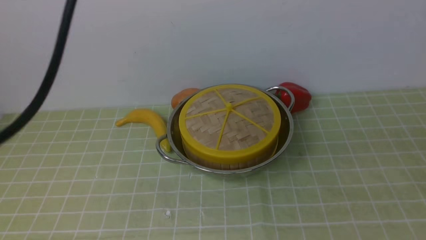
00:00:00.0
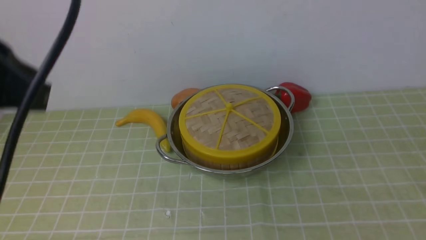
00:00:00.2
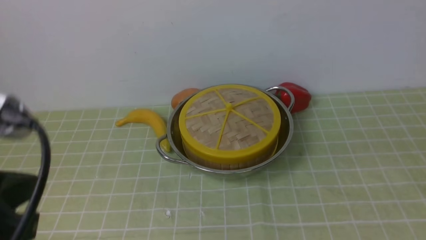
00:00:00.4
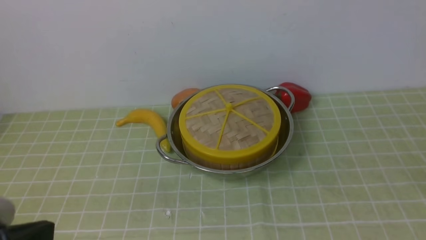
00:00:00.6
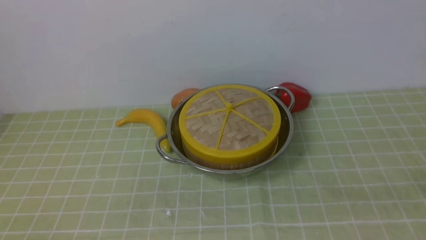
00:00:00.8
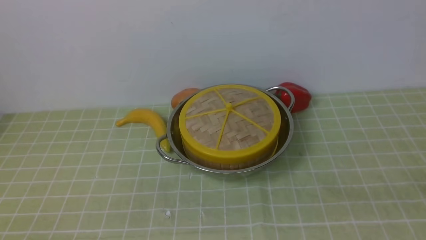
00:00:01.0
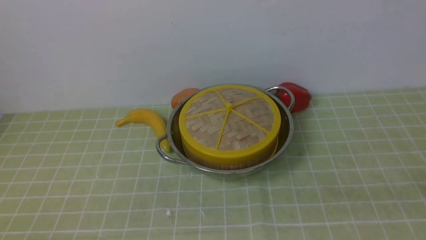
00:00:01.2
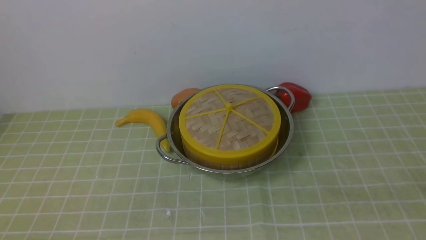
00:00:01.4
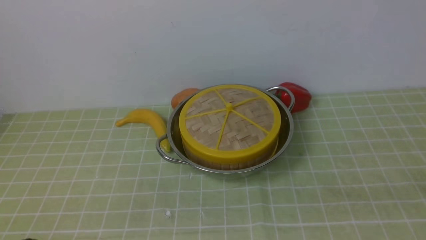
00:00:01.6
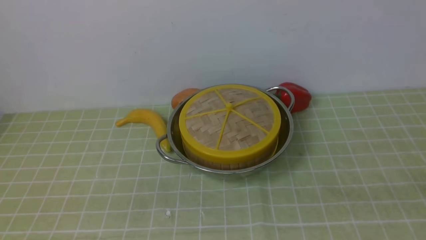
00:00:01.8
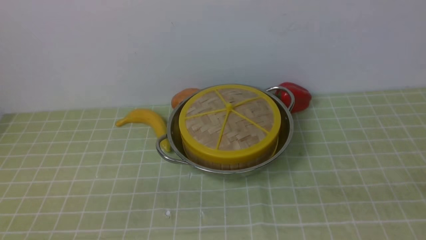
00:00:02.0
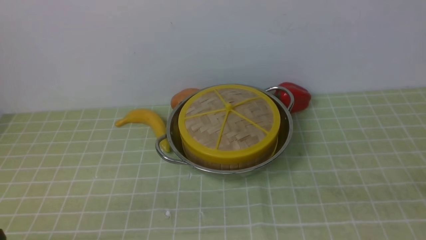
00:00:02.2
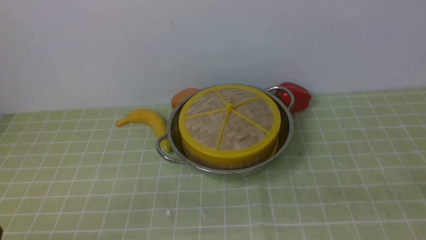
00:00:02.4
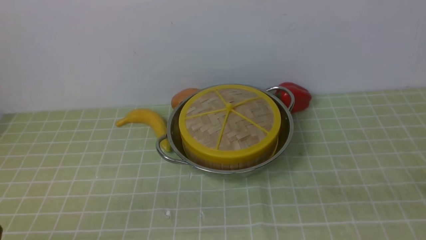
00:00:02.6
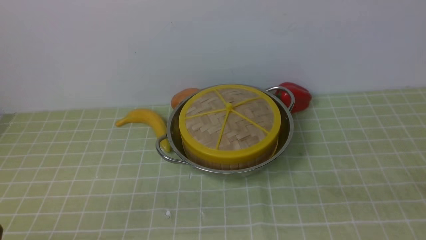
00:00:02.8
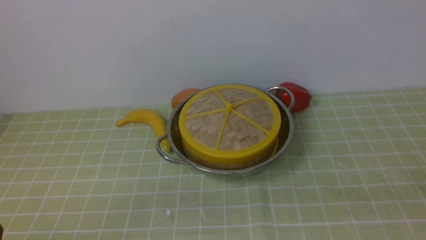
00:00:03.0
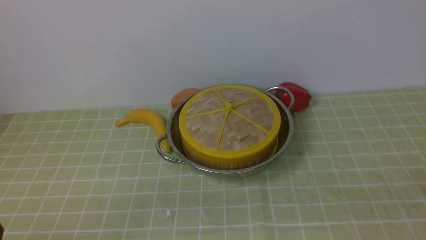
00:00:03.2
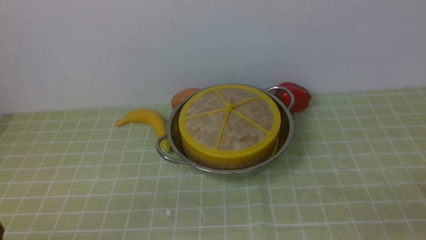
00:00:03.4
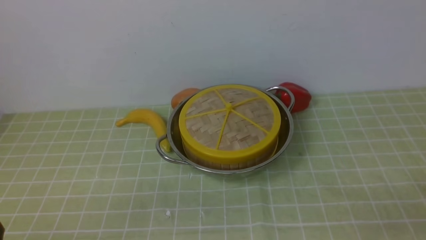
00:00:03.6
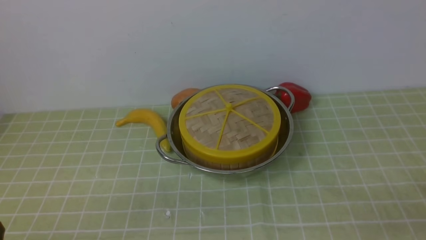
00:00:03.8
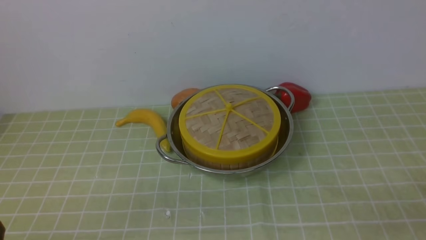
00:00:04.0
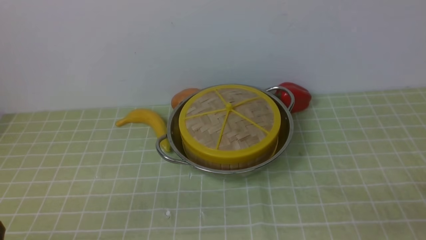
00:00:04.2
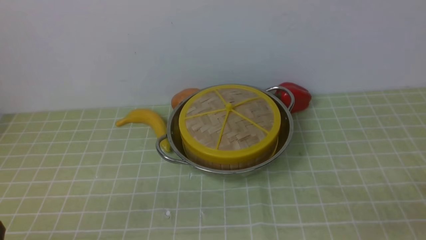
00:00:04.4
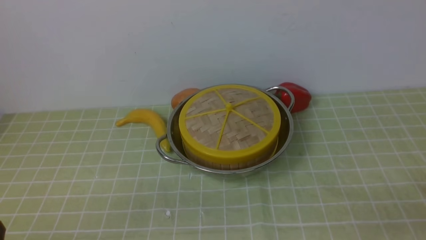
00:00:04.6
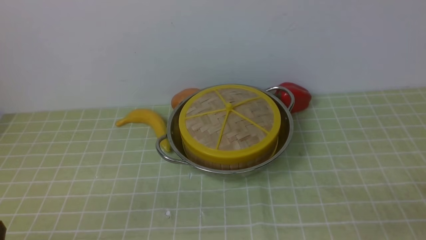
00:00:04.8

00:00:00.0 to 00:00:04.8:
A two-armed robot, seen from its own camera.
Task of the whole recording: place the steamer in the pot on the green tablecloth, and put the lid on the steamer.
00:00:00.0 to 00:00:01.6: The left gripper travels downward and backward by about 25 cm.
